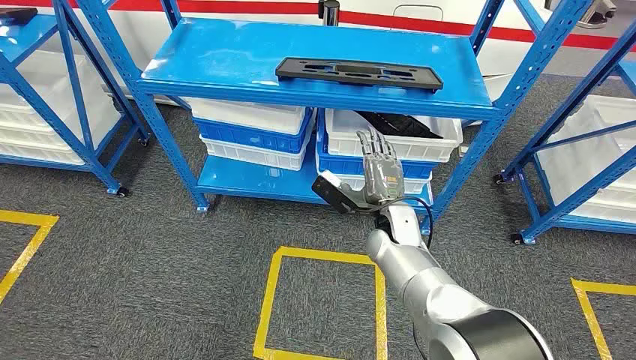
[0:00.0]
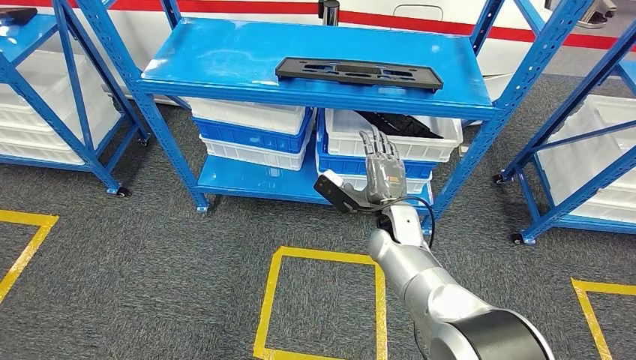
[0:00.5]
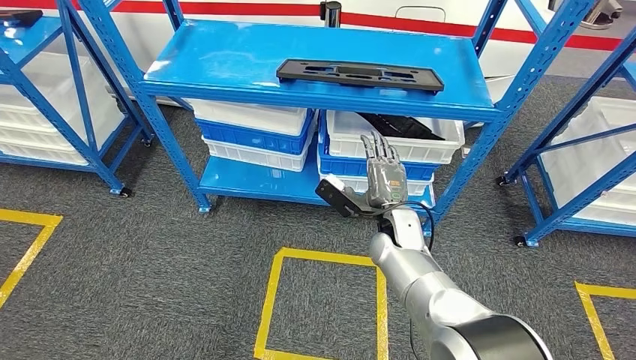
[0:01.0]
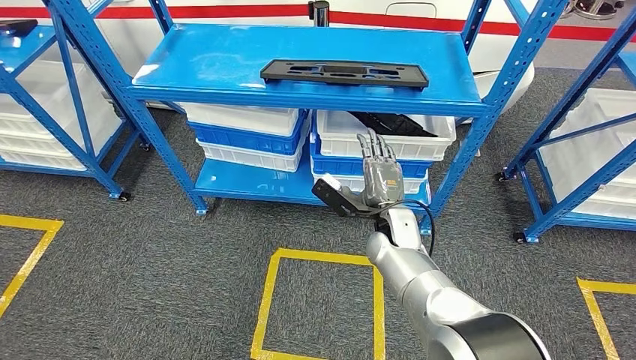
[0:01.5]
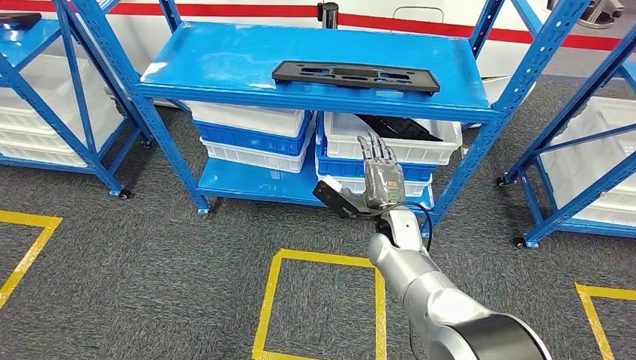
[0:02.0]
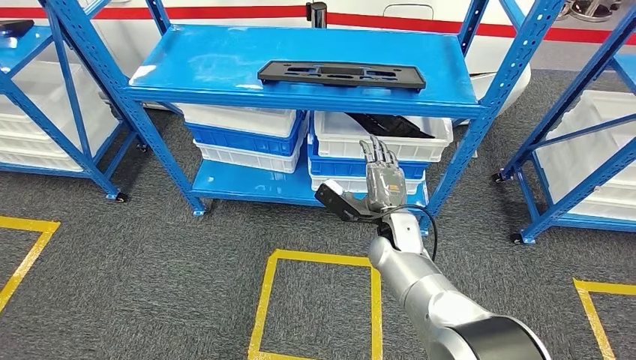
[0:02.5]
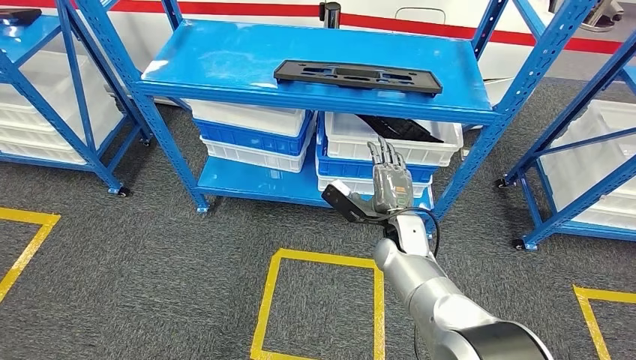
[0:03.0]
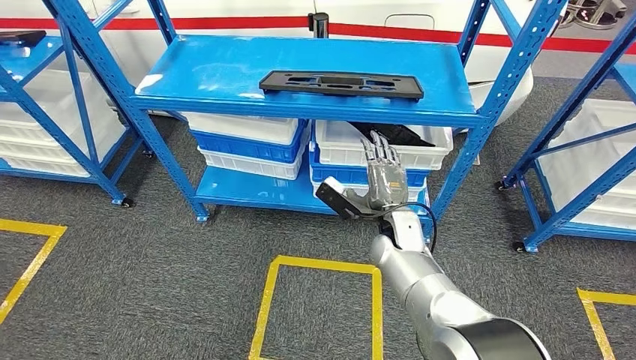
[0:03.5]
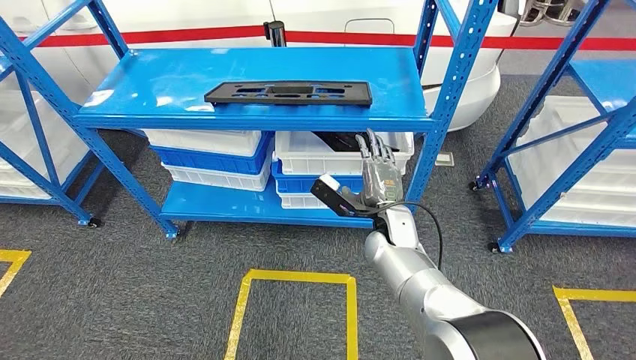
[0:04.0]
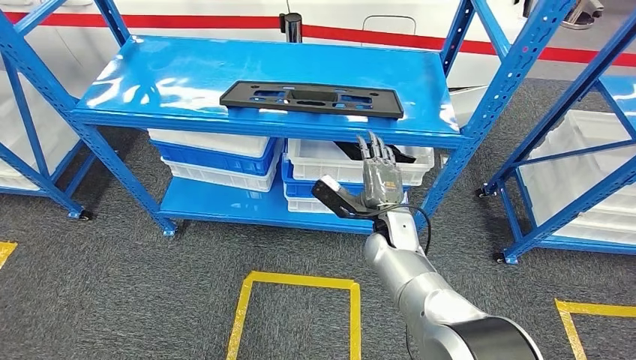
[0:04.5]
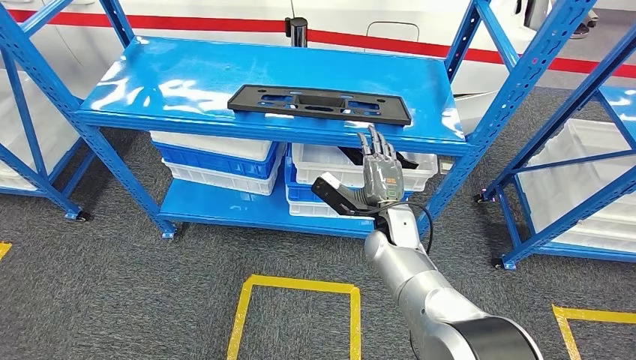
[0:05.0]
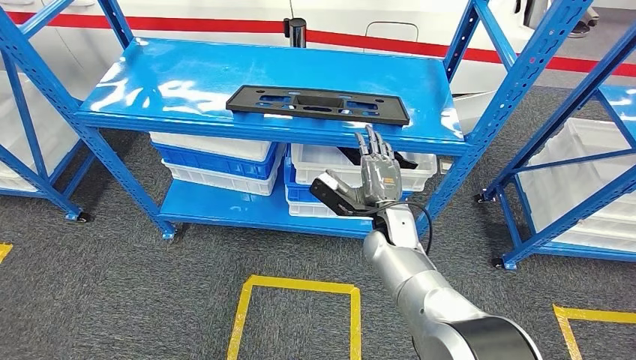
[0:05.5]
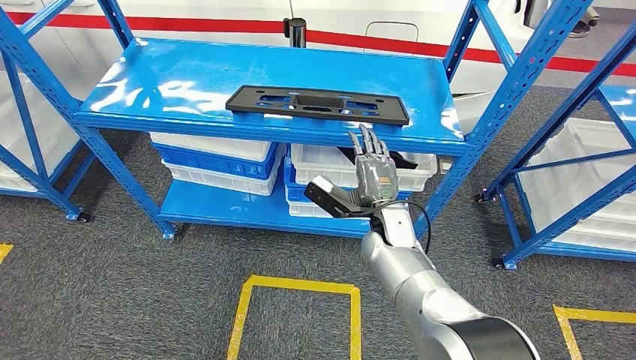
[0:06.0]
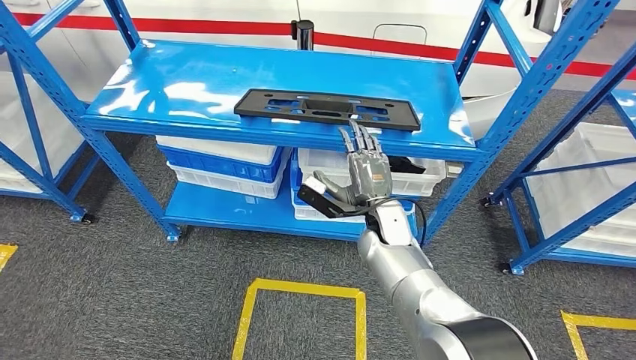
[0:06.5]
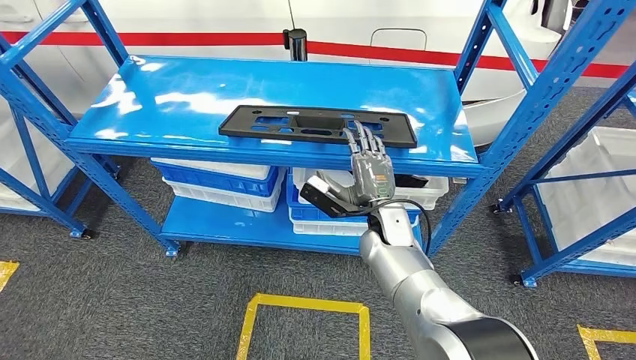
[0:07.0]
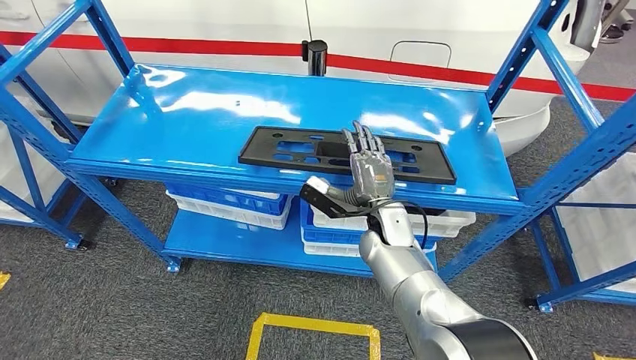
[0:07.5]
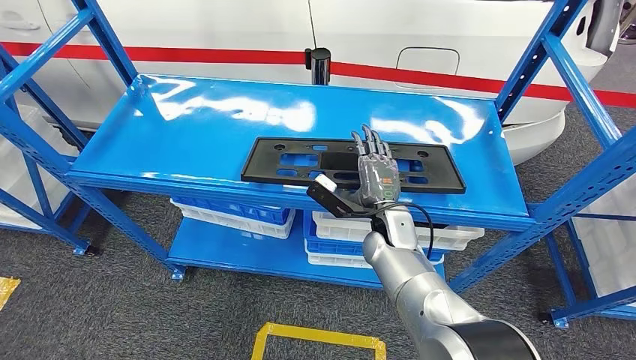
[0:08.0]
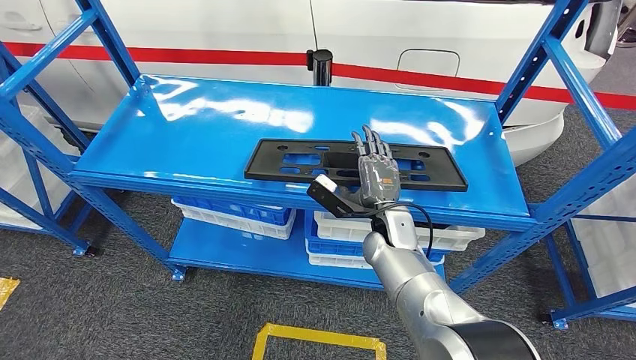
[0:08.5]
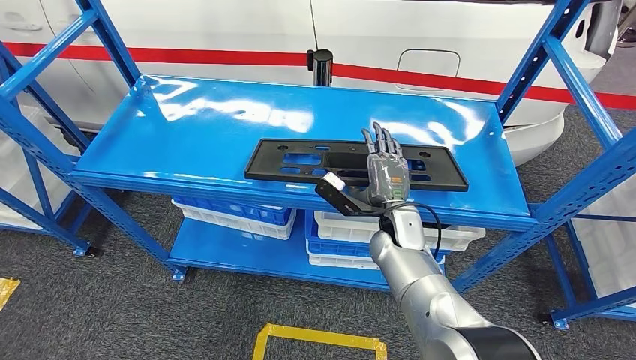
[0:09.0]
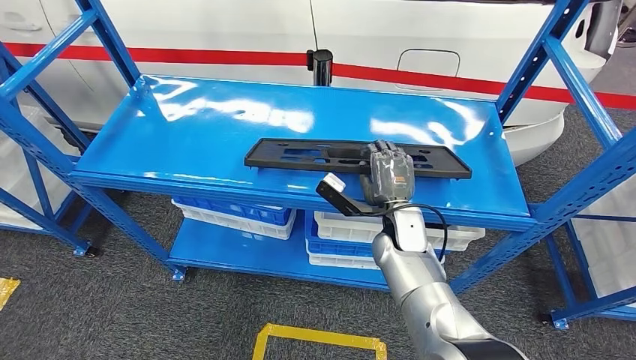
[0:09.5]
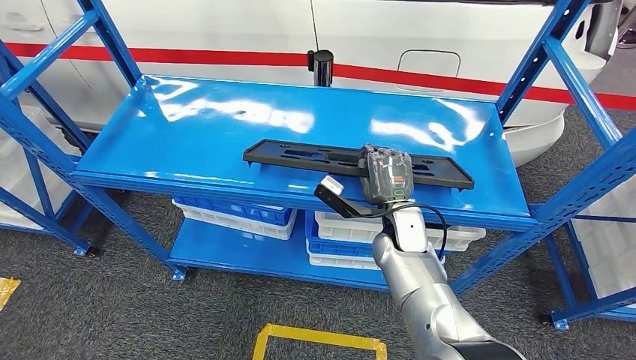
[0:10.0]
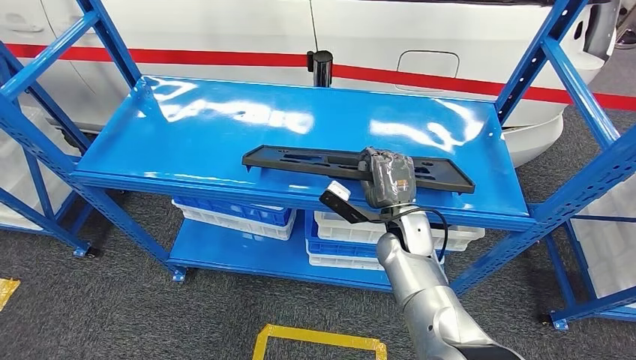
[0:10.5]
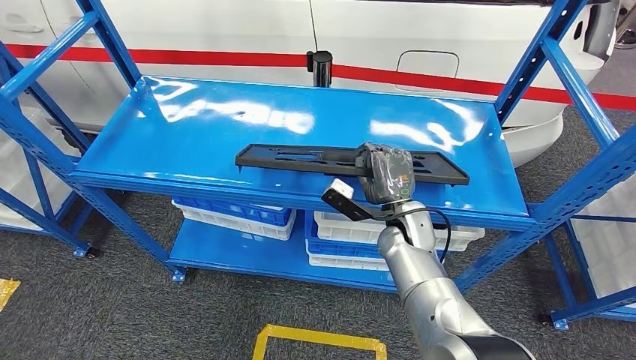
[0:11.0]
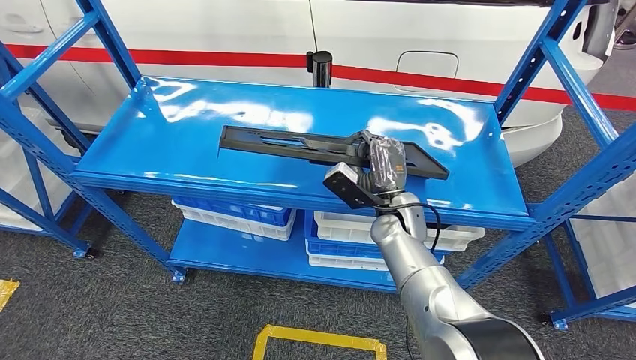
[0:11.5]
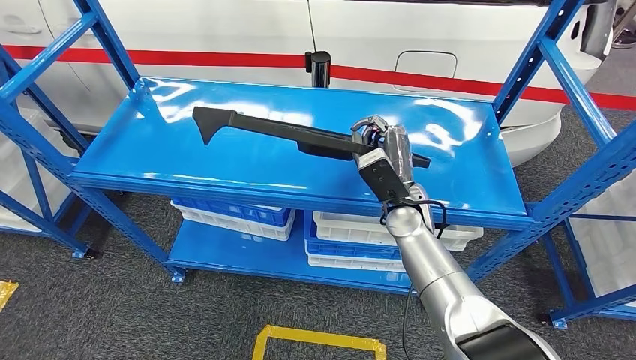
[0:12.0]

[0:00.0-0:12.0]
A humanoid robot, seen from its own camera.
0:08.0 to 0:10.0: There are only small adjustments of the hands.

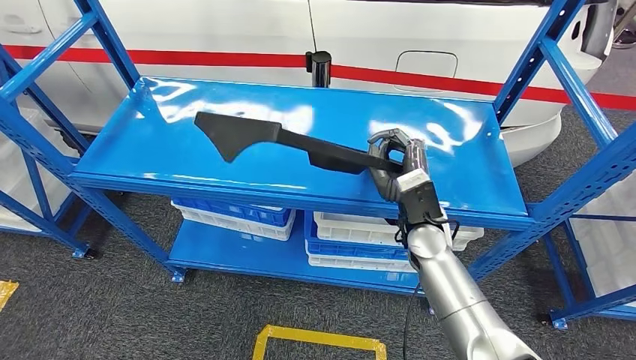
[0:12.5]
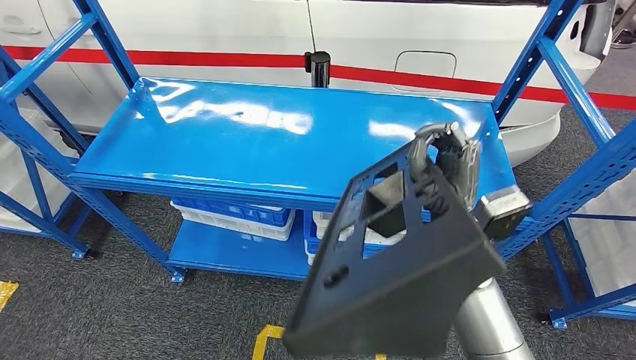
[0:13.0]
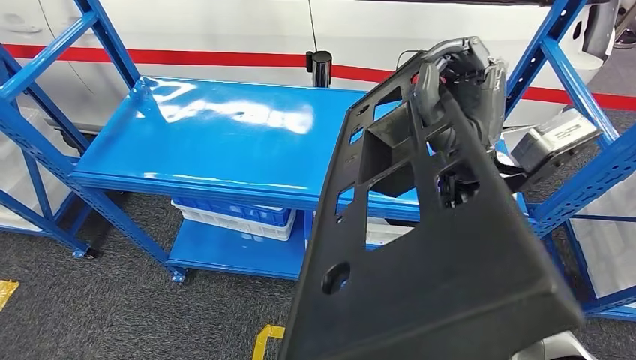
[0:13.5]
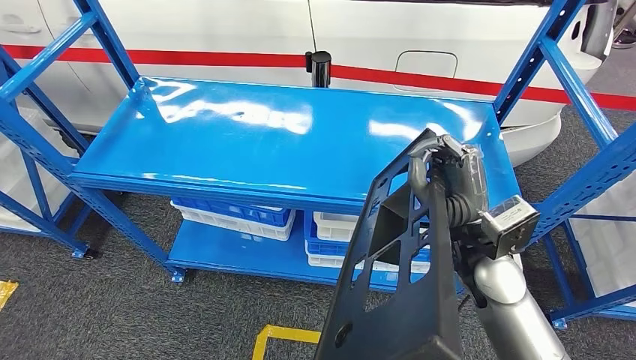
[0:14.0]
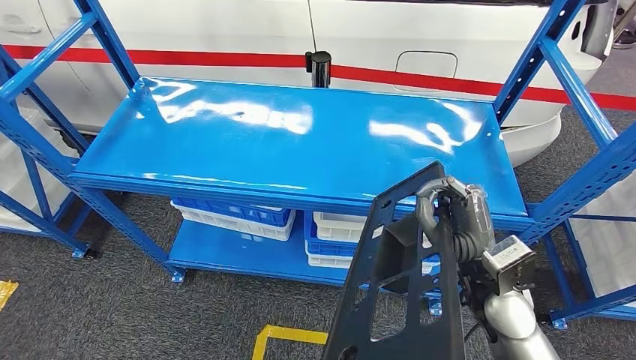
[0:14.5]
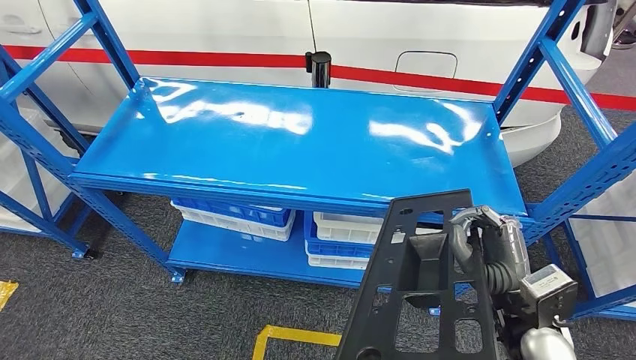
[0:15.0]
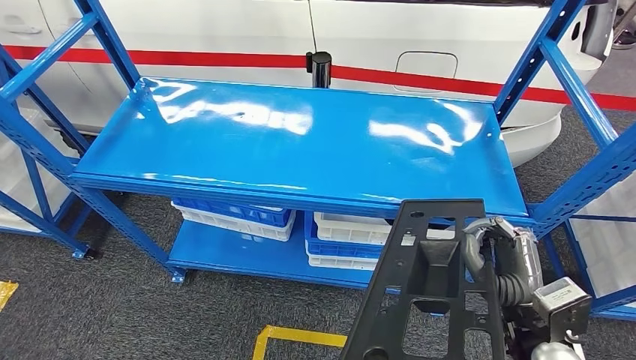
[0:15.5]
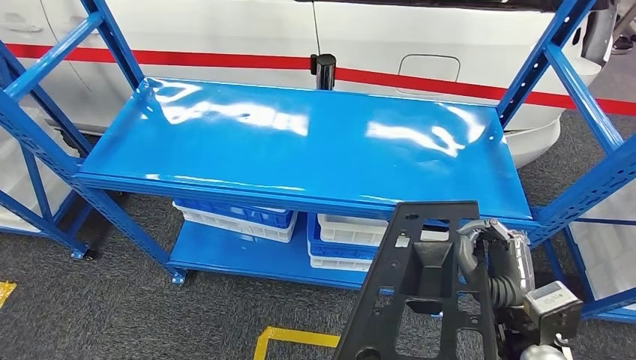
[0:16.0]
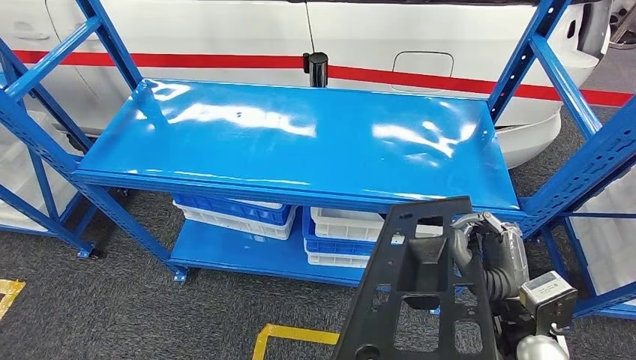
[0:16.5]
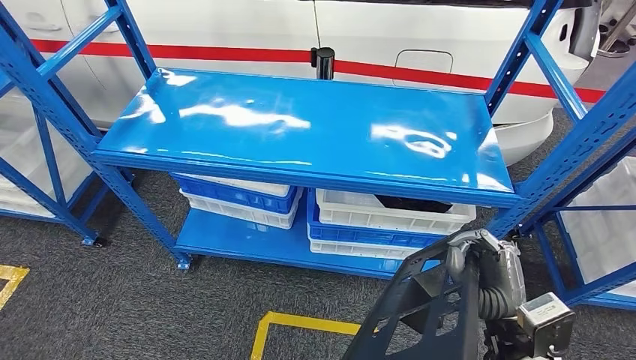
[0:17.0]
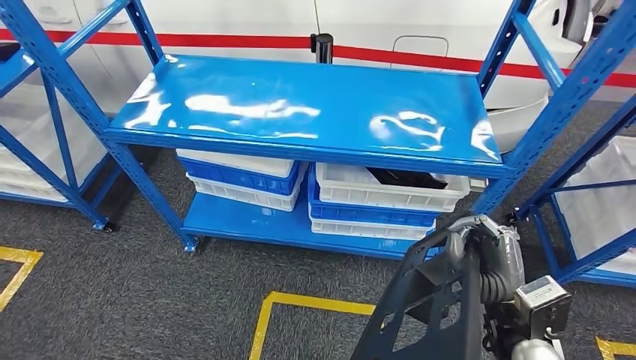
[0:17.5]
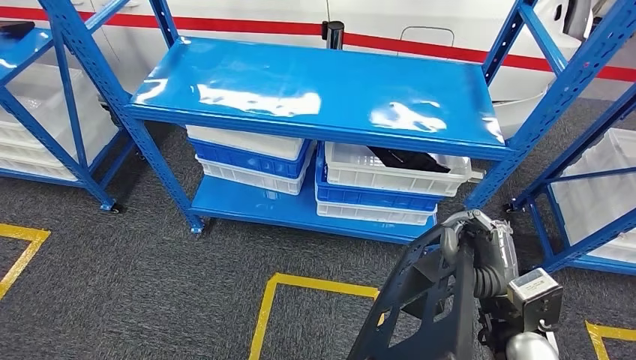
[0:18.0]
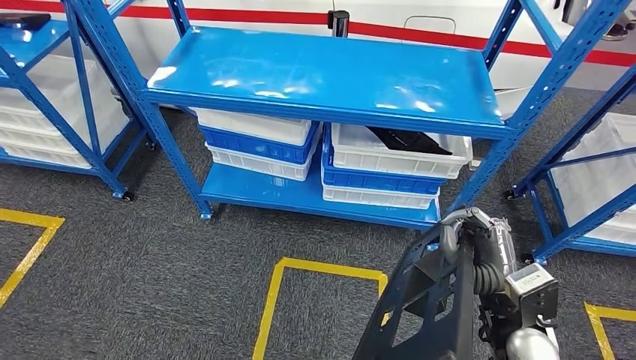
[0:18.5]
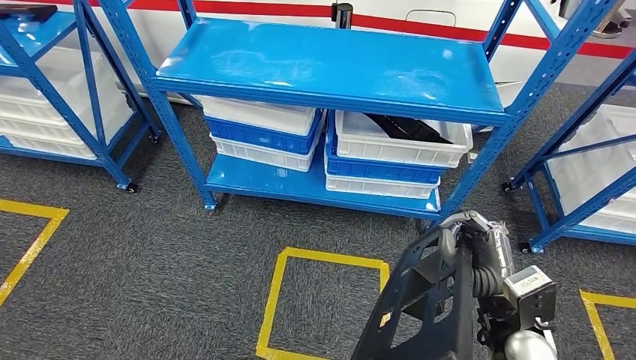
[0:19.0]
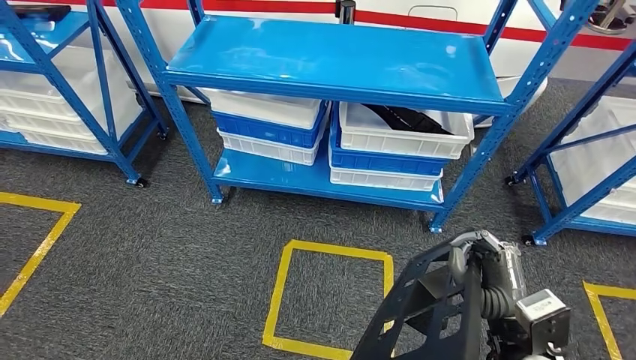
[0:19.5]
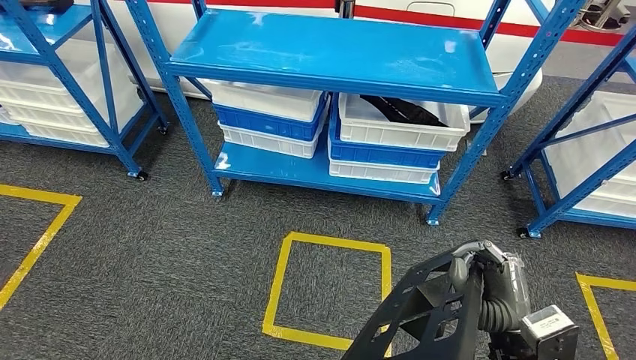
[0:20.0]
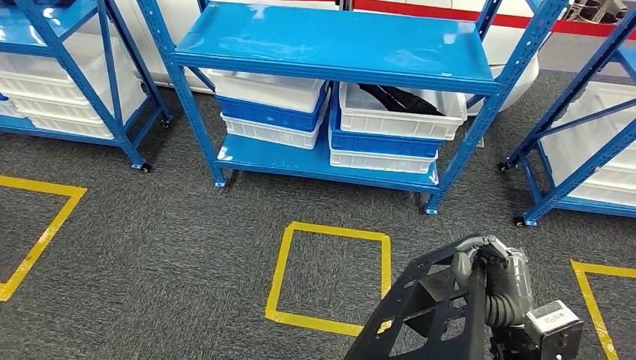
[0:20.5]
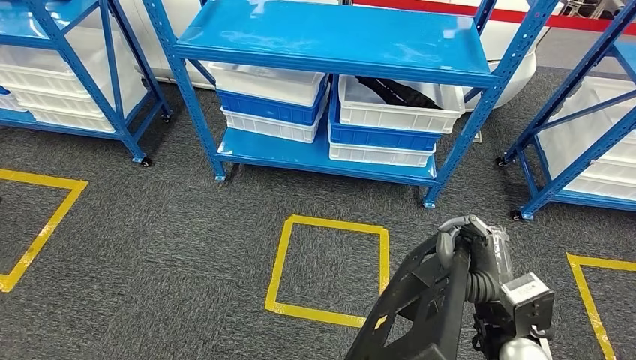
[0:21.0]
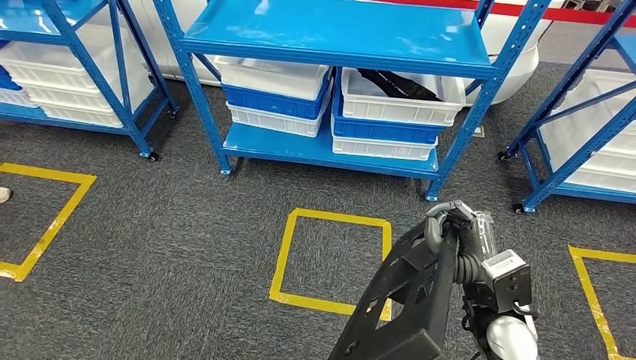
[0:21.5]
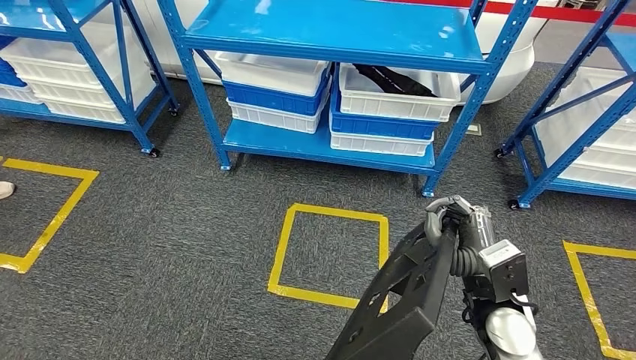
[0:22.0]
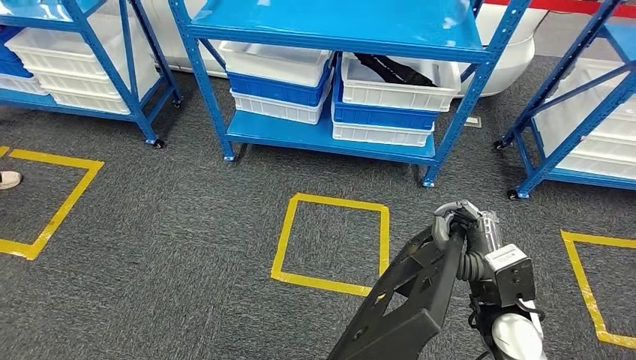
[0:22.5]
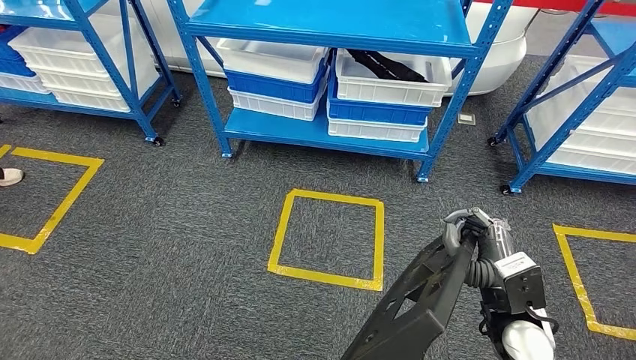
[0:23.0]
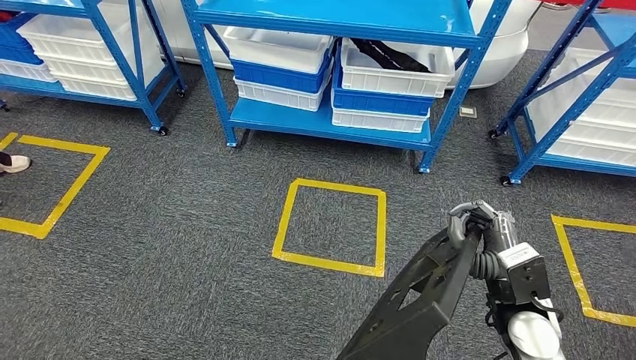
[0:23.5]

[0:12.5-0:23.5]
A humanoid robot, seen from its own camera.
Step, 0:12.5 to 0:15.5: Pick up the large material from the shelf.
0:12.5 to 0:14.5: The right hand is displaced backward and to the right by approximately 15 cm, and travels upward and back again, approximately 15 cm each way.
